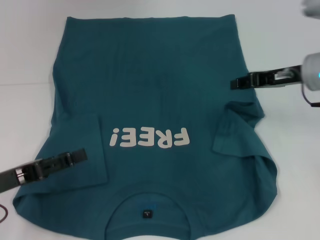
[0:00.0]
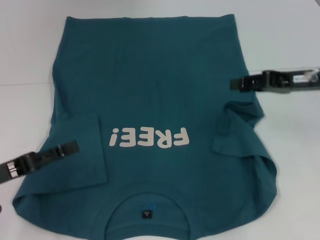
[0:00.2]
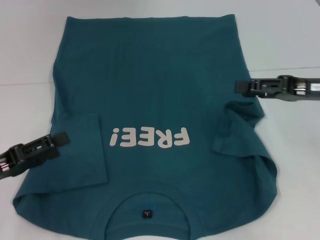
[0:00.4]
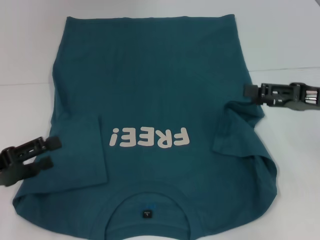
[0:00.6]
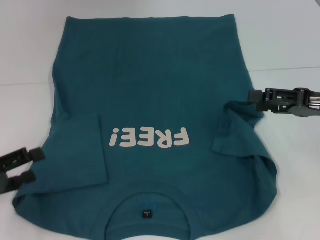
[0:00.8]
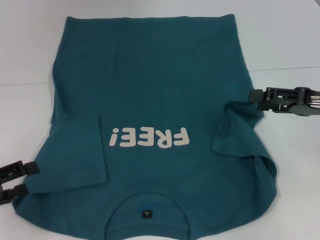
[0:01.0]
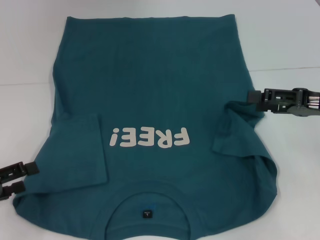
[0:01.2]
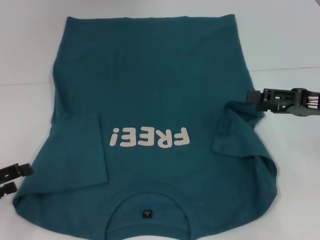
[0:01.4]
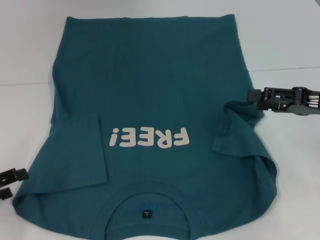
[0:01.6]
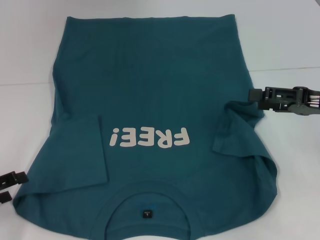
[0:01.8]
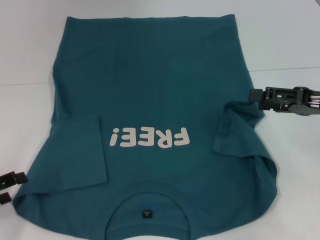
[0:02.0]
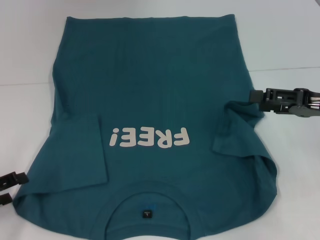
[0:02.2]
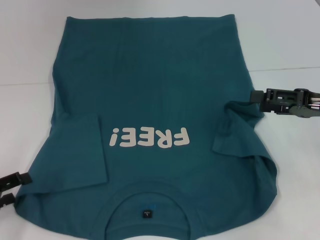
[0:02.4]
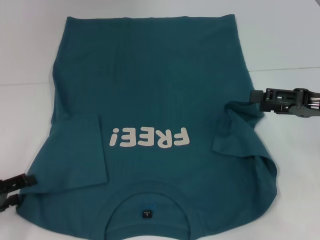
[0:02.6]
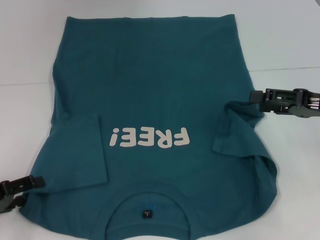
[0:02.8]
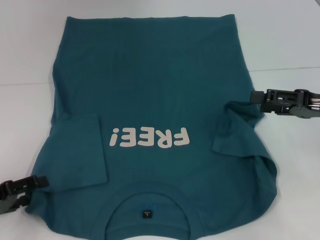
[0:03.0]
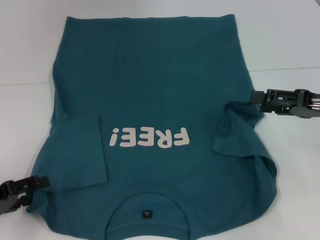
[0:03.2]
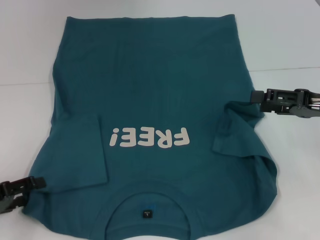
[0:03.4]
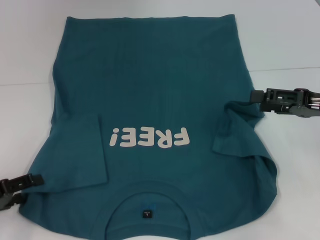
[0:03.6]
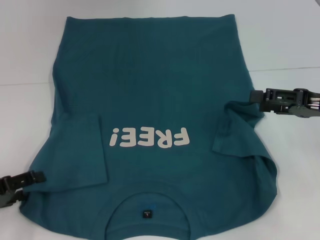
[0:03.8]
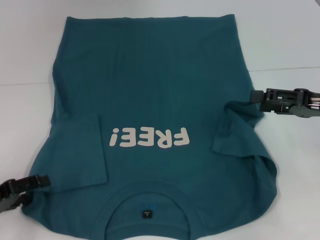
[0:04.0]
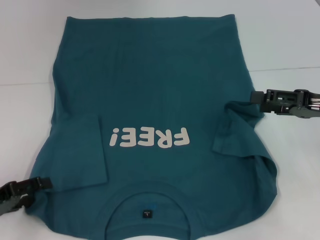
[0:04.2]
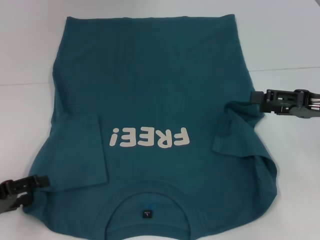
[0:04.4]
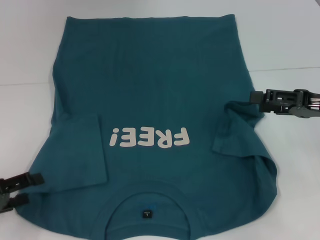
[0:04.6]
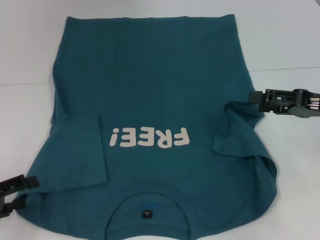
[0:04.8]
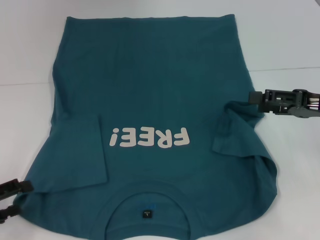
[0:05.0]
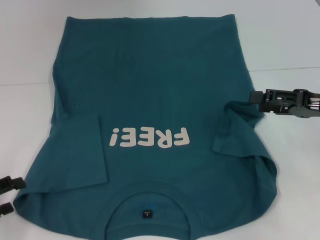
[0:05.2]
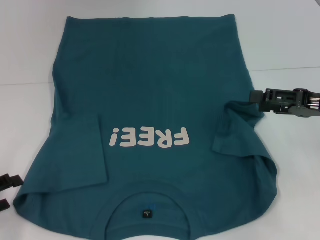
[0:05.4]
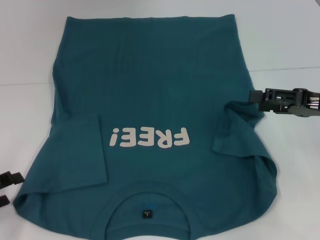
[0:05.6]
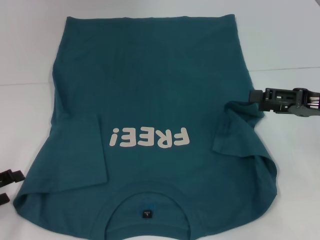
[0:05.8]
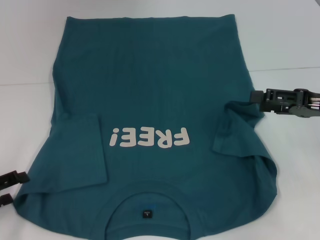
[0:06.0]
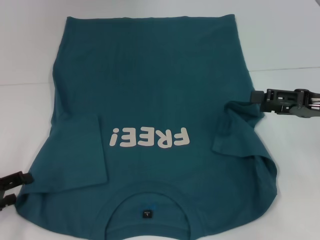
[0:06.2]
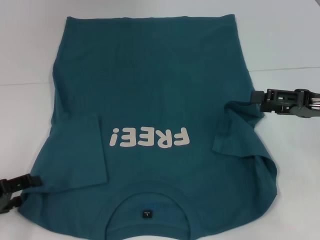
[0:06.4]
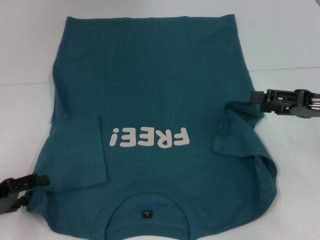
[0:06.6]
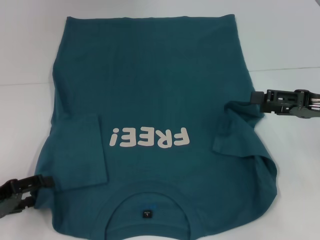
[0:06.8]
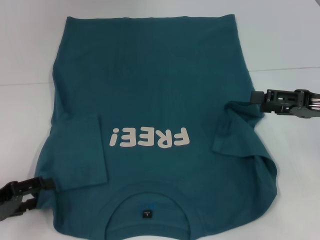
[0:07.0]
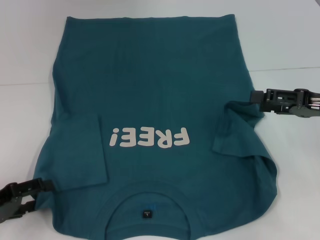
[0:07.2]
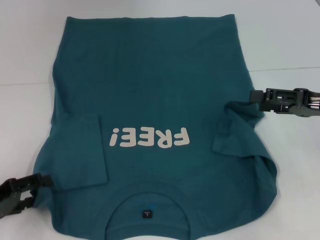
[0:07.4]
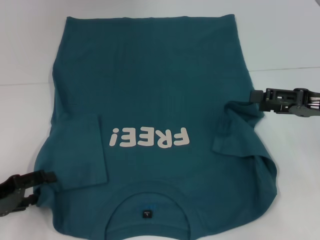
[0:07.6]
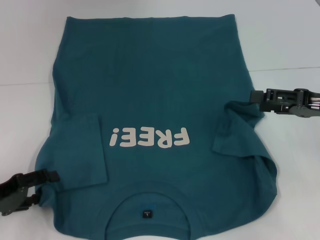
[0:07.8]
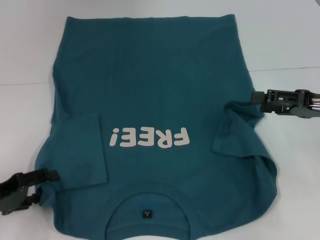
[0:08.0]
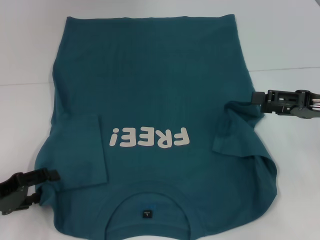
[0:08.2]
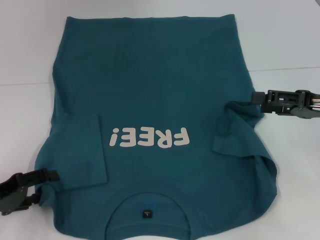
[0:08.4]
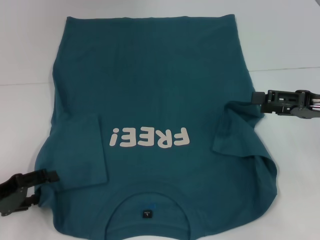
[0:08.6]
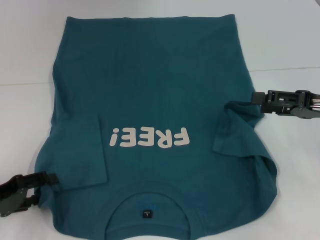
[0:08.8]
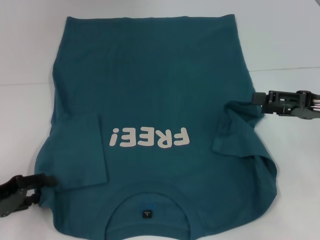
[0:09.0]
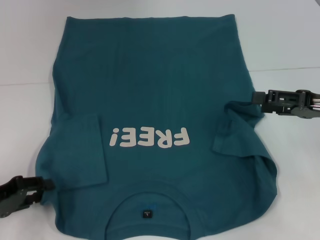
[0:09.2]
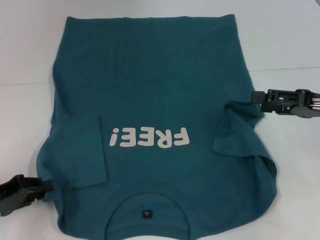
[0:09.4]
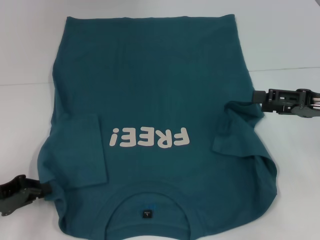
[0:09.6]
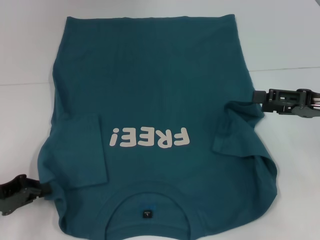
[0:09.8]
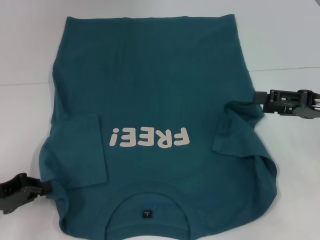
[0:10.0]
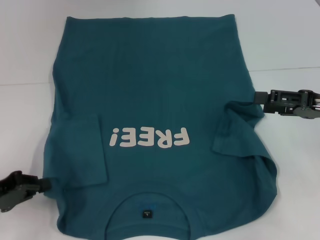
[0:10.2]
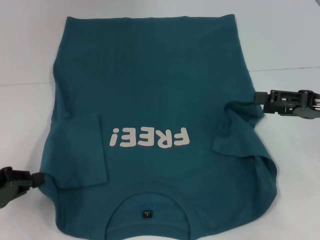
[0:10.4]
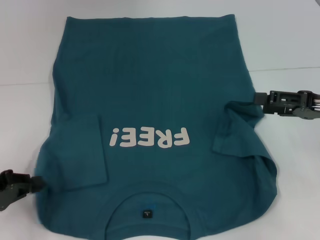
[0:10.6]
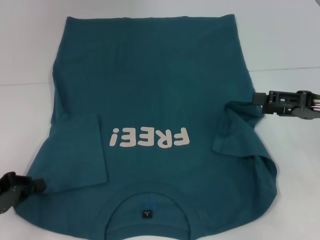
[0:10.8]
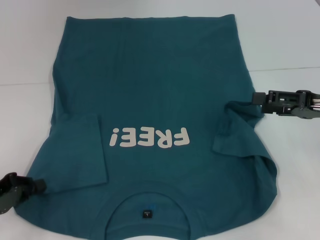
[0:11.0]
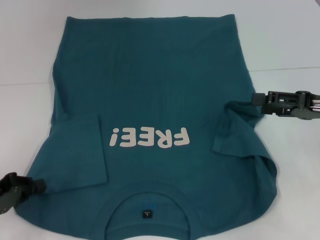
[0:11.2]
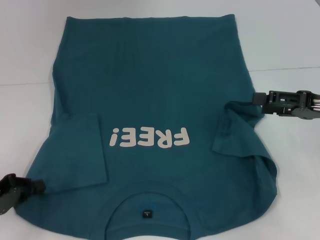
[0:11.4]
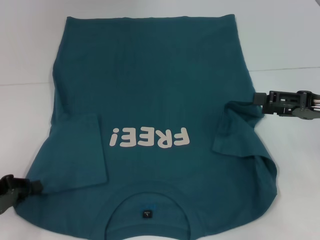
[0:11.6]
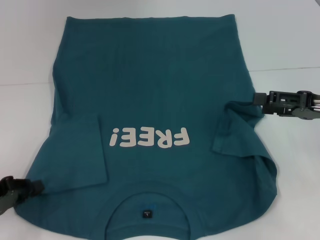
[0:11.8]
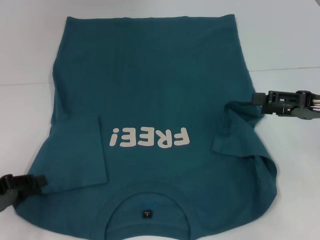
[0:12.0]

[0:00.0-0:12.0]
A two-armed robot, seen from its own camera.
0:00.0 to 0:01.6: The right gripper is displaced backward and to the right by roughly 10 cm, and opens its fingers. The left gripper heads to the left, covering about 5 cm.
0:01.6 to 0:03.0: The grippers make only small movements.
0:03.0 to 0:04.4: Both grippers stay about where they are.
0:04.4 to 0:07.6: The grippers stay close to where they were, moving slightly.
0:07.6 to 0:09.0: Neither gripper changes place.
0:09.0 to 0:10.4: The left gripper closes up.
0:10.4 to 0:12.0: The grippers move only a little.

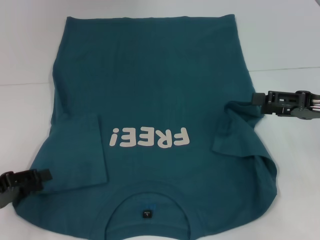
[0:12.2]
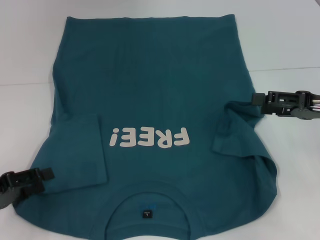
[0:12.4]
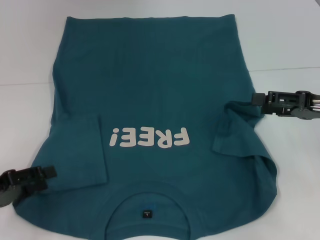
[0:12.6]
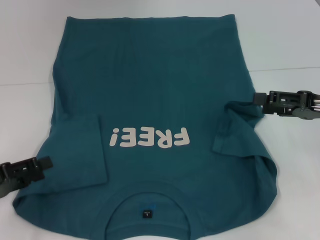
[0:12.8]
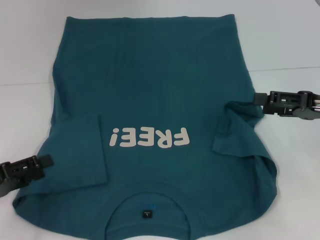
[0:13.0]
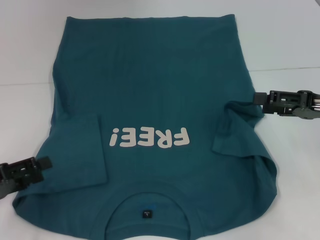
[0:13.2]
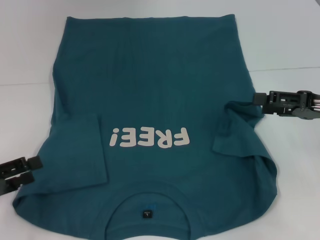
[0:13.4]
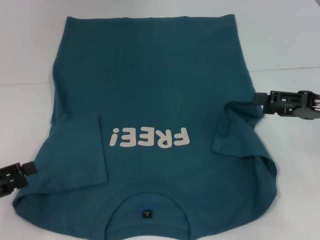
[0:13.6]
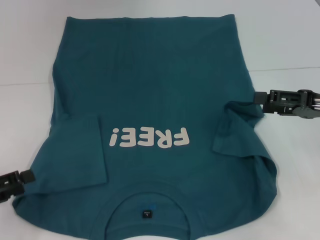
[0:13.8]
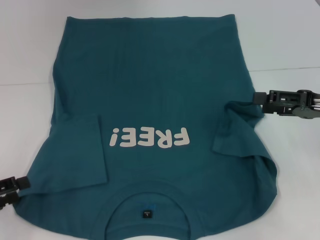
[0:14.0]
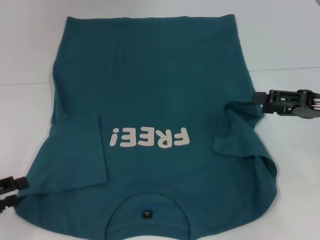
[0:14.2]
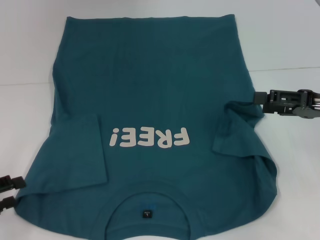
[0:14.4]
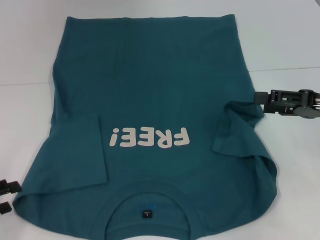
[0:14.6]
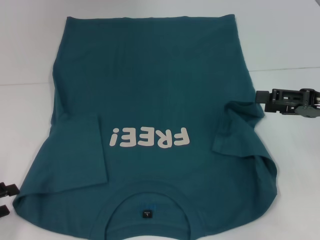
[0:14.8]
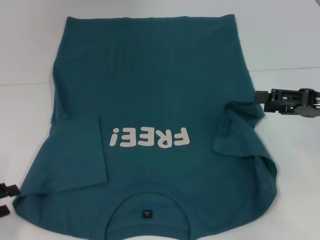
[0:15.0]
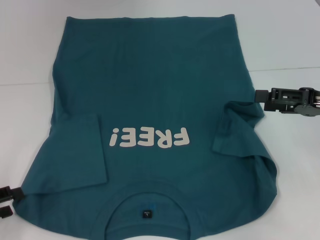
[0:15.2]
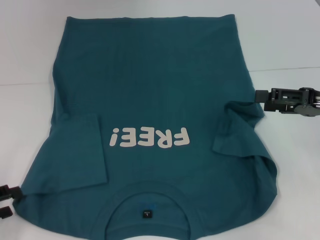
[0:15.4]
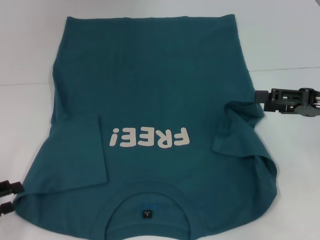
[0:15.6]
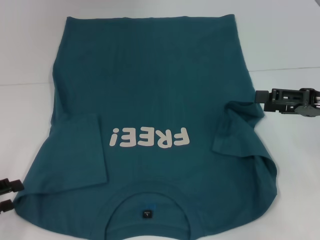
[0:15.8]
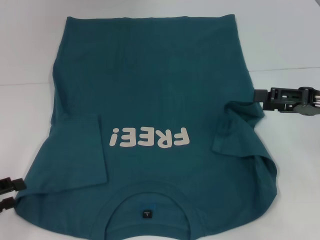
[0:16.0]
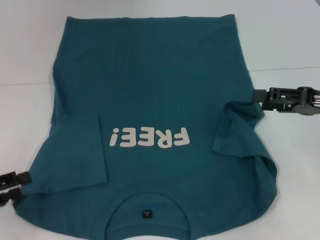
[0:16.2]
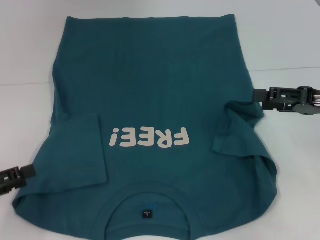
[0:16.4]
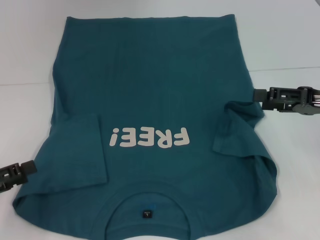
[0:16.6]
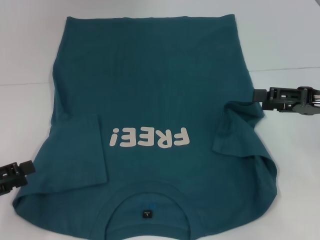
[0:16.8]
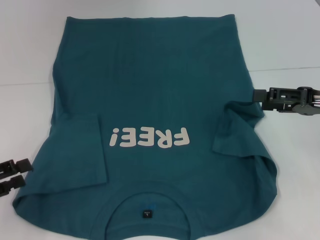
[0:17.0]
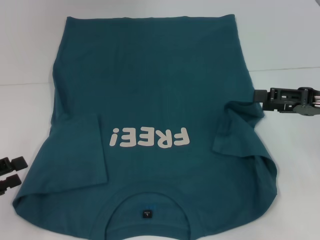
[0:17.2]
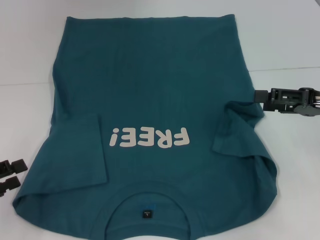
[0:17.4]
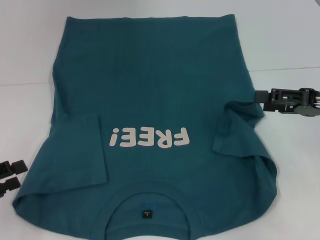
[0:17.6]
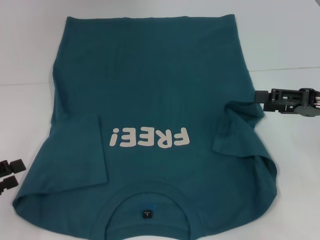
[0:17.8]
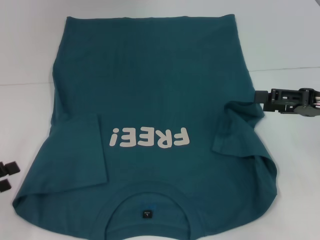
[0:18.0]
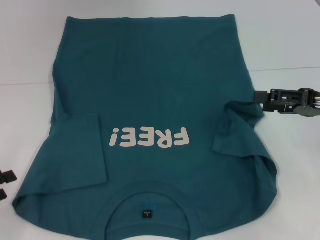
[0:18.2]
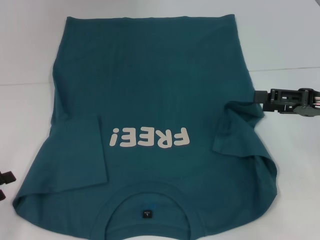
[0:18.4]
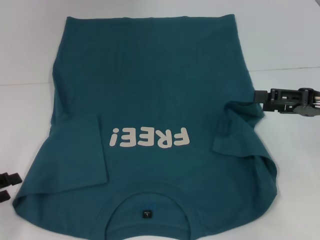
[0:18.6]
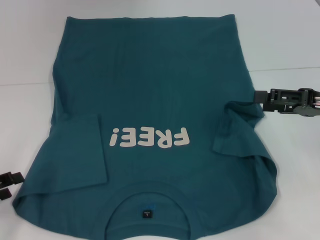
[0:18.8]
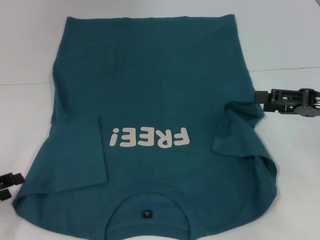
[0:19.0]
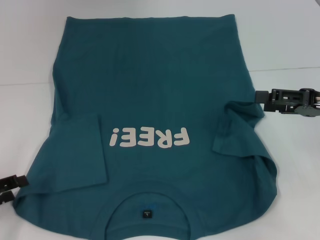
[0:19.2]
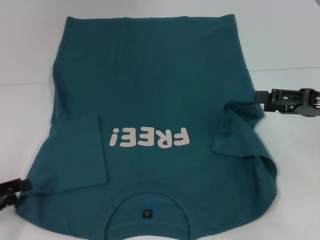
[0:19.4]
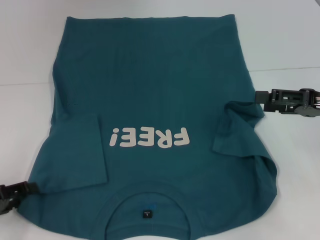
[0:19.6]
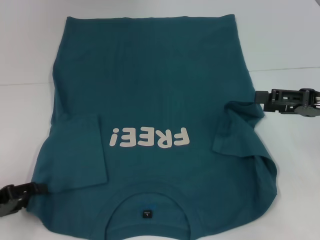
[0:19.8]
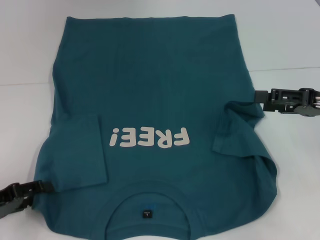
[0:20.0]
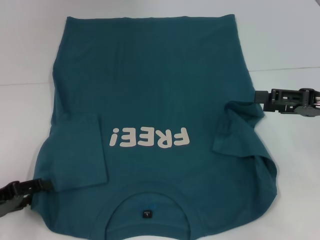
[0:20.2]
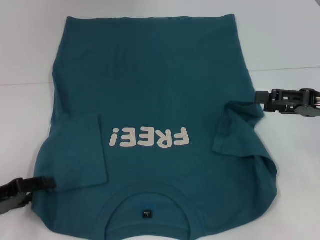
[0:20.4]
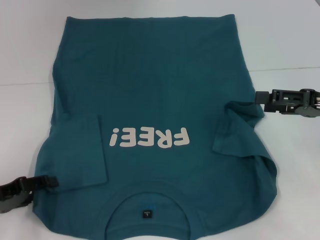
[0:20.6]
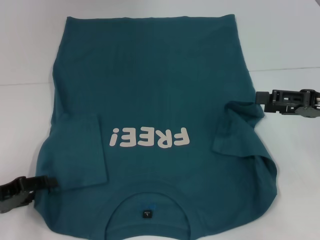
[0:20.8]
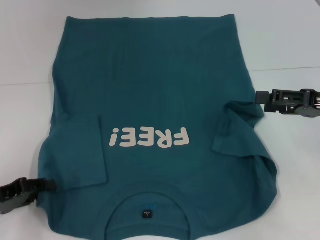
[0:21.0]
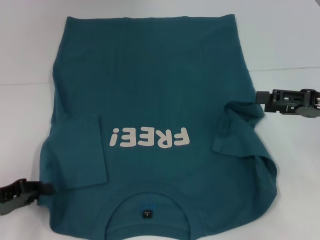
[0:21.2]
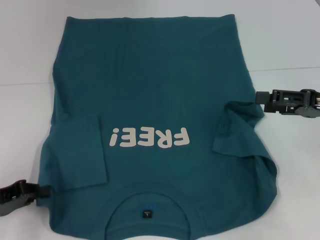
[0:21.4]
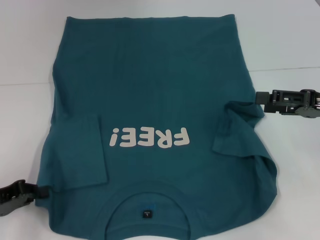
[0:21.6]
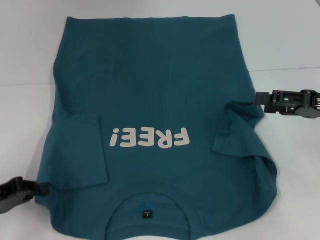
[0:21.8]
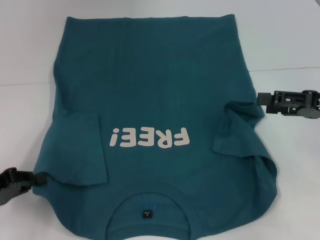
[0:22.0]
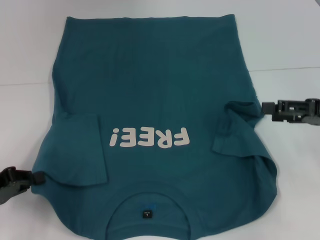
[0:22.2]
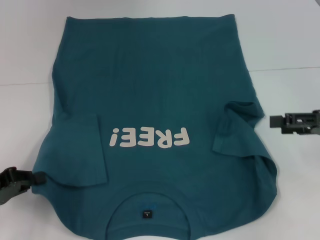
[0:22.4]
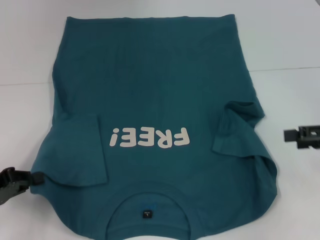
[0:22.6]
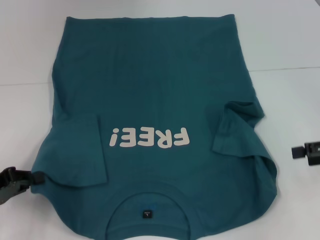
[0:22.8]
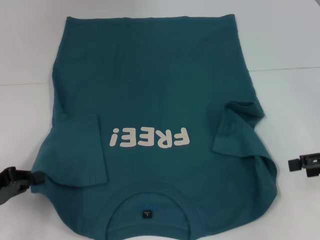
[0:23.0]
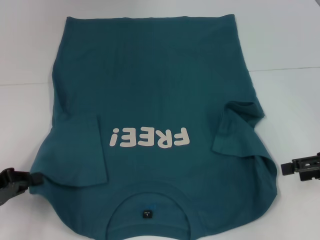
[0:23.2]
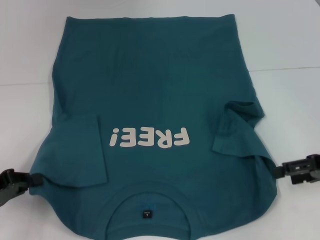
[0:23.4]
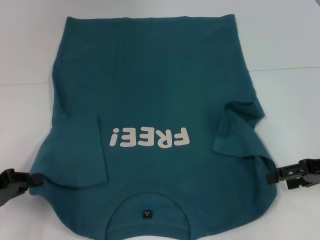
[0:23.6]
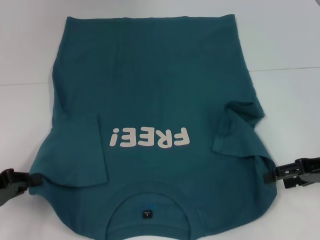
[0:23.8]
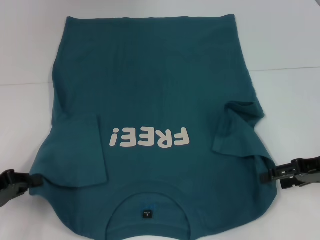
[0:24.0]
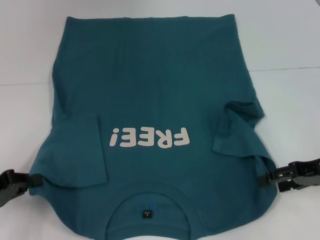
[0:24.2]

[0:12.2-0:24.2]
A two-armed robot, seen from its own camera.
Step, 0:12.2 to 0:21.4: Grab the bottom left corner with your left hand.
0:12.2 to 0:15.2: The grippers stay close to where they were, moving slightly.
0:18.2 to 0:19.8: The grippers stay close to where they were, moving slightly.
0:19.8 to 0:21.2: The grippers move only a little.
0:21.2 to 0:22.6: The left gripper closes.
0:22.6 to 0:24.2: The right gripper shifts by roughly 5 cm.
